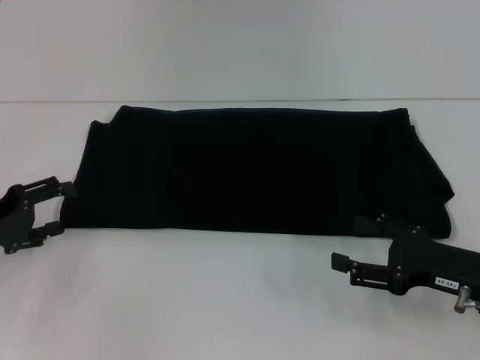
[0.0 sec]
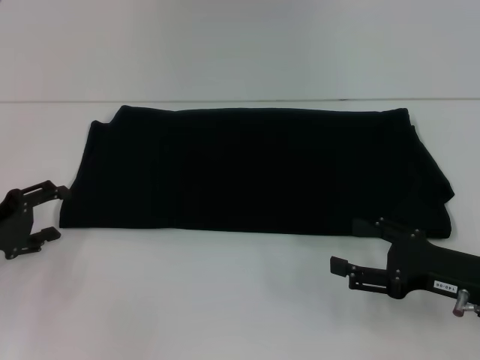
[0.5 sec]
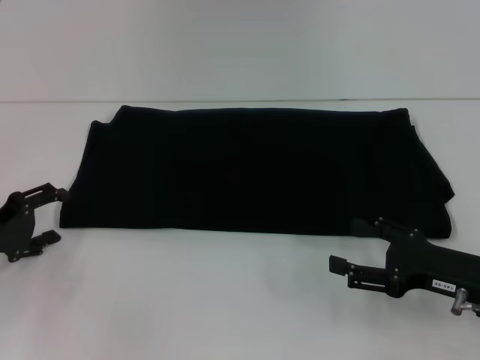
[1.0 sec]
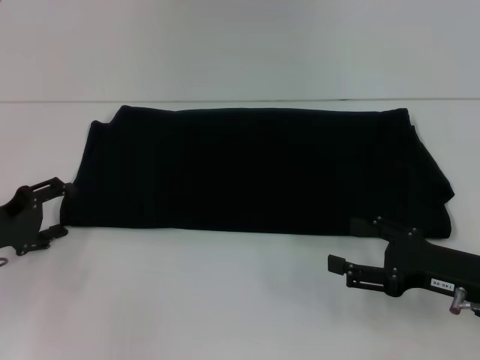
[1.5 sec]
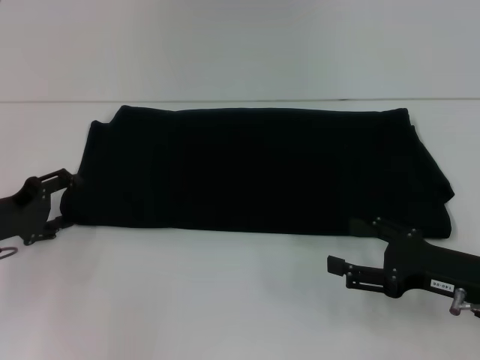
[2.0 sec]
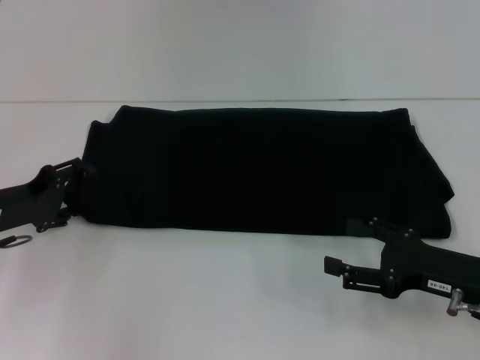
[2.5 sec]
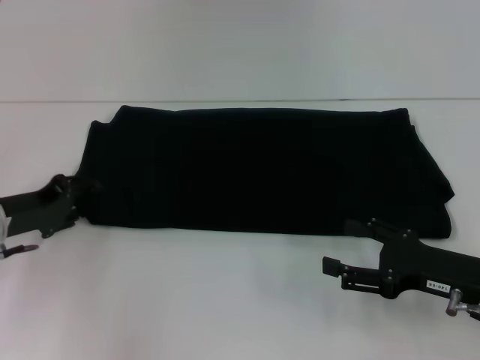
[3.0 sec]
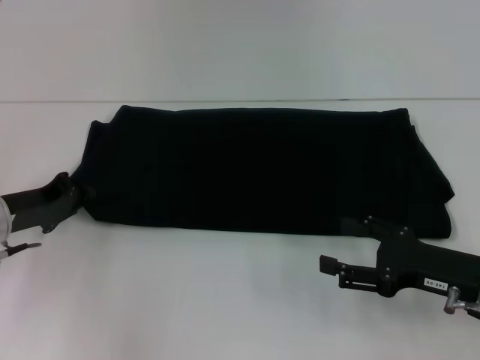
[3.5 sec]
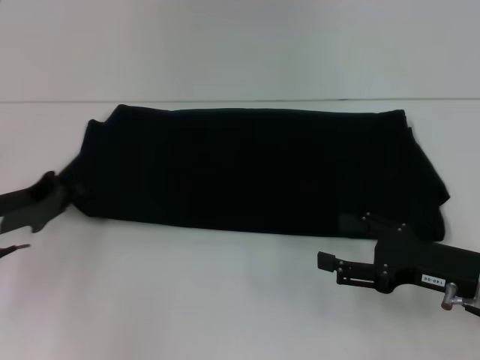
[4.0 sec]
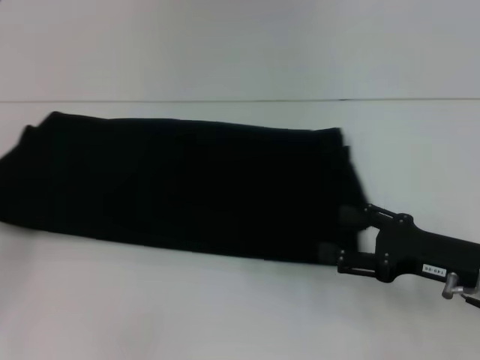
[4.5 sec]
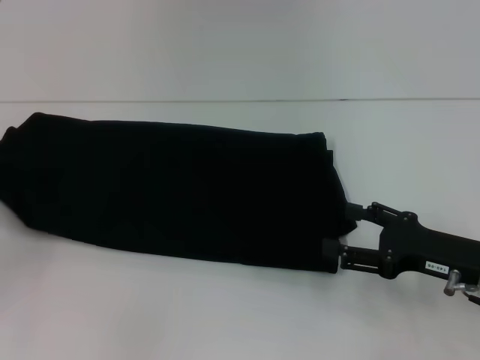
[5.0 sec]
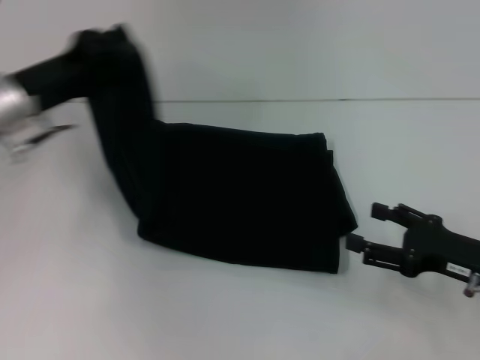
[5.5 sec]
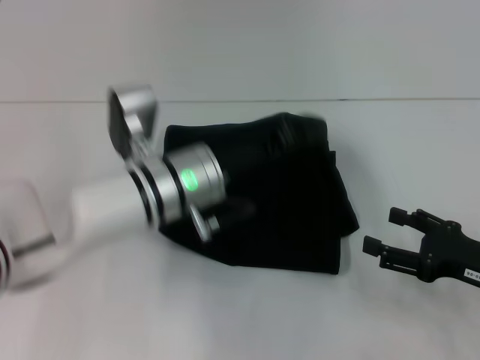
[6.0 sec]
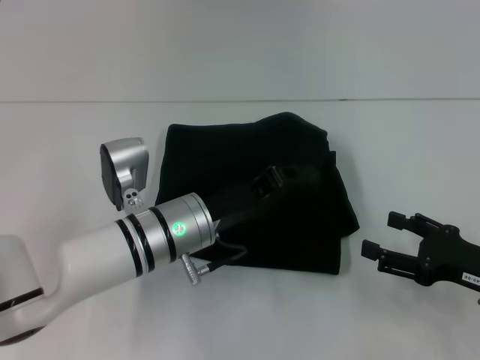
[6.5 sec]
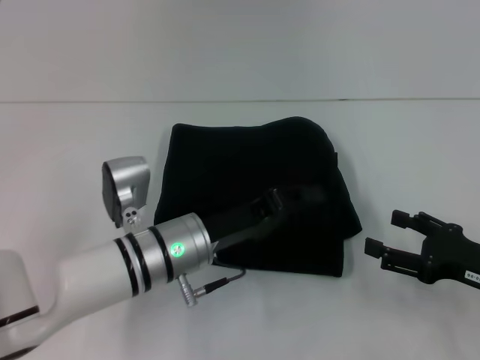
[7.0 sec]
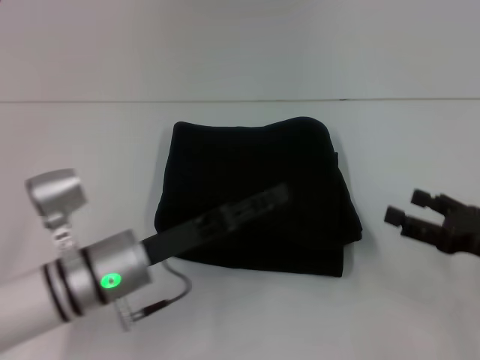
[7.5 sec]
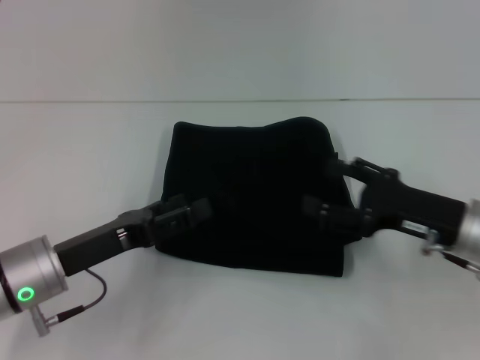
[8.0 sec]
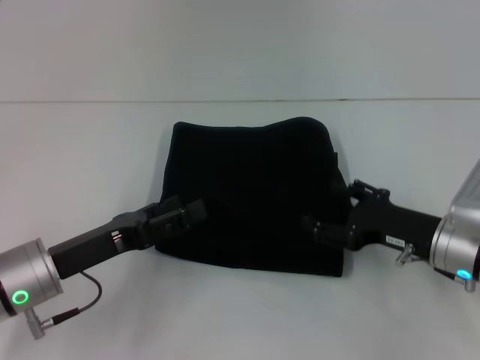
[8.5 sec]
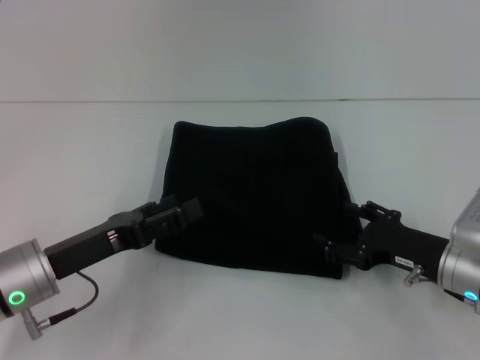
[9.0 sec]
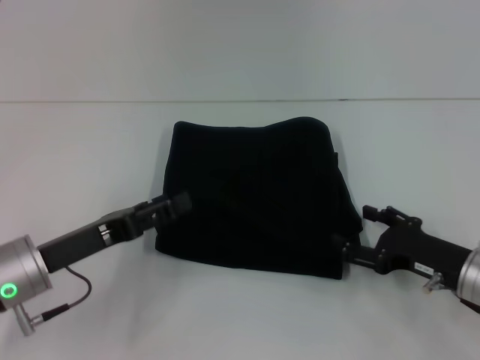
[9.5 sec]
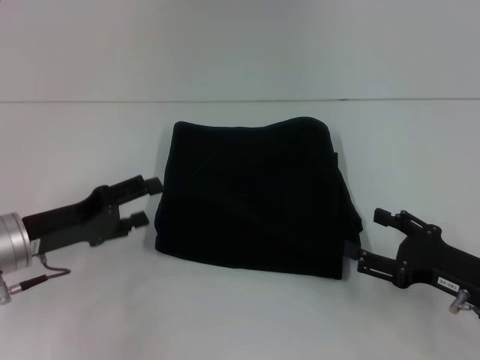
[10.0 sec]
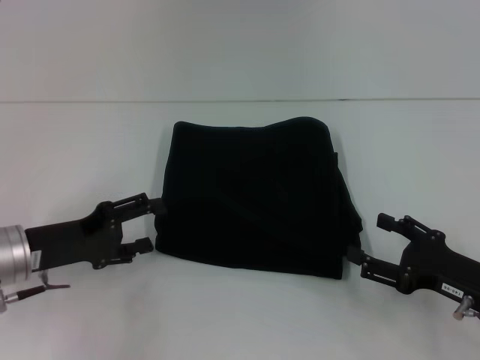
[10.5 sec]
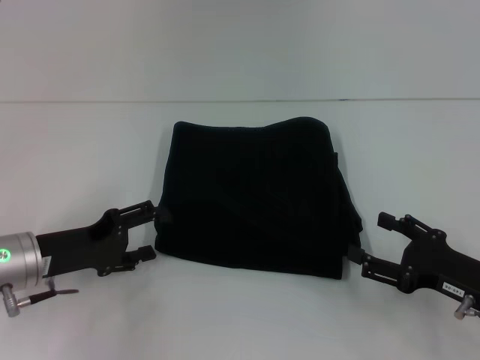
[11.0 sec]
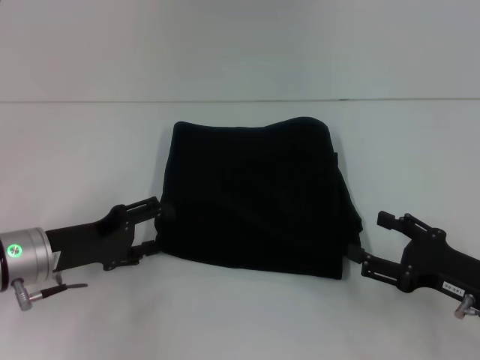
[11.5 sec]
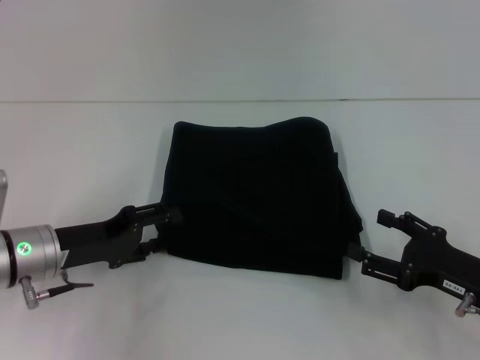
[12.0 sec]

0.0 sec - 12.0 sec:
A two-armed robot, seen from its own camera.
Step, 0.0 sec - 7.5 sec: Fold the clothes with your left hand.
0.0 sec - 2.0 sec: The grippers make only small movements.
2.0 sec - 4.0 sec: The left gripper closes its fingers.
4.0 sec - 6.0 sec: The left gripper is displaced to the right by about 25 cm.
6.0 sec - 8.0 sec: The left gripper goes some 15 cm to the left and backward, and opens up. Meanwhile the right gripper moves to the left, approximately 5 cm.
8.0 sec - 10.0 sec: The left gripper ends up some 5 cm from where it was. The right gripper travels backward by some 5 cm.
10.0 sec - 12.0 sec: The grippers make only small movements.

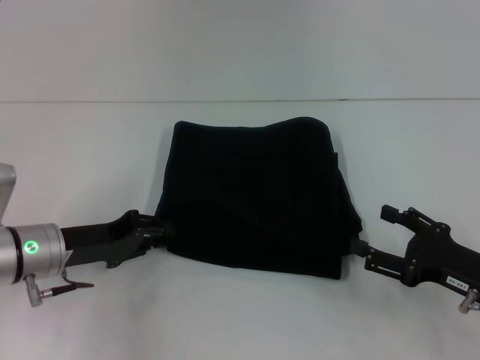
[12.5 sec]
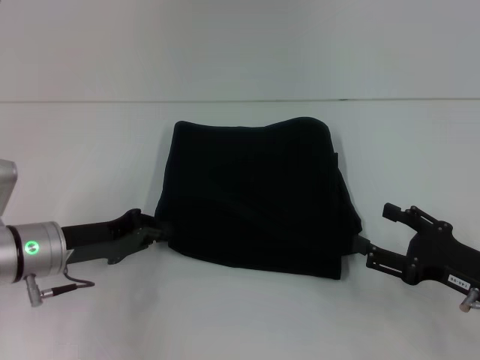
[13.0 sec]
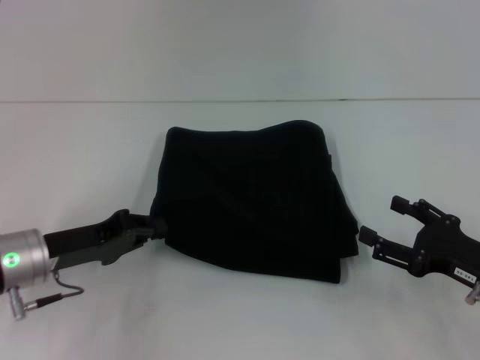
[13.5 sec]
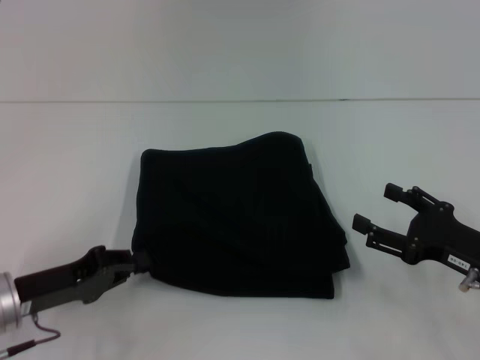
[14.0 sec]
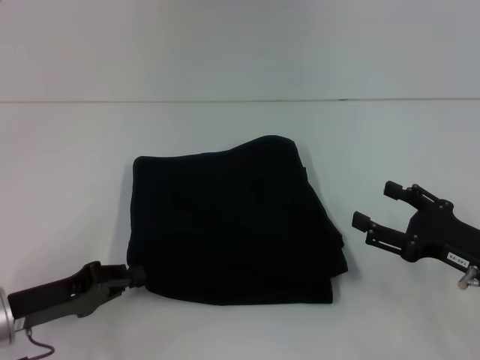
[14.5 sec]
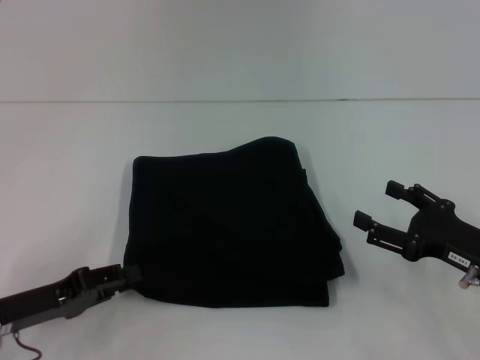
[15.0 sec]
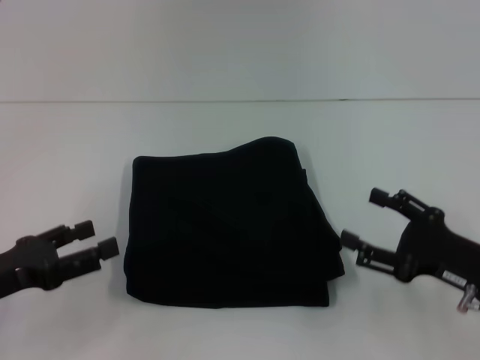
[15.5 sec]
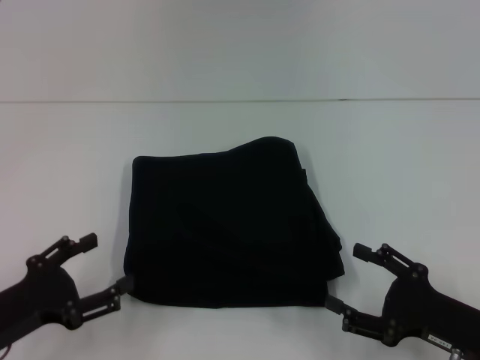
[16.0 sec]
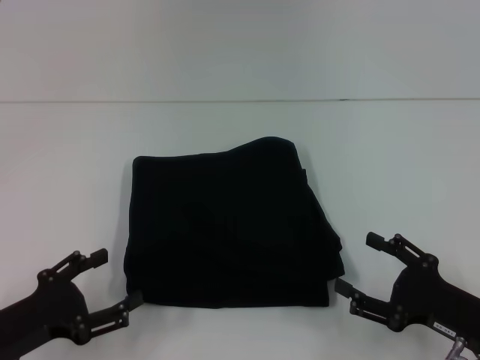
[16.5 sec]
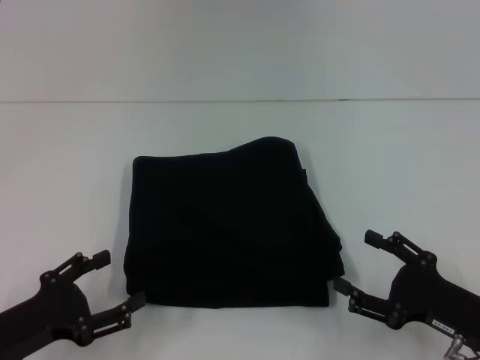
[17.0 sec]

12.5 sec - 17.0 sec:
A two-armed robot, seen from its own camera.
12.5 sec - 14.5 sec: The left gripper is displaced backward by some 10 cm.
14.5 sec - 17.0 sec: The left gripper opens up. Meanwhile the right gripper is displaced backward by approximately 5 cm.

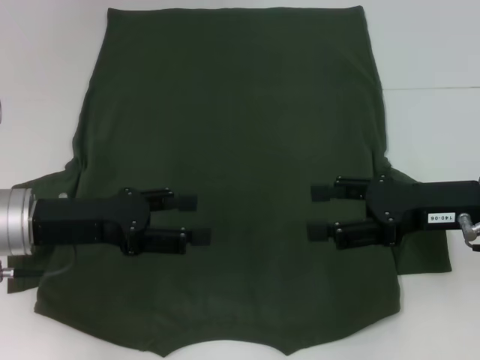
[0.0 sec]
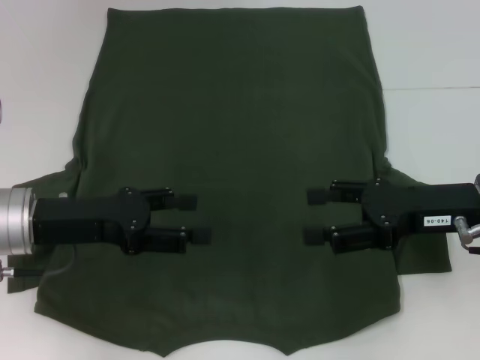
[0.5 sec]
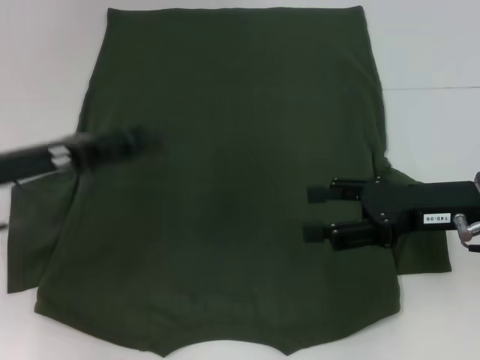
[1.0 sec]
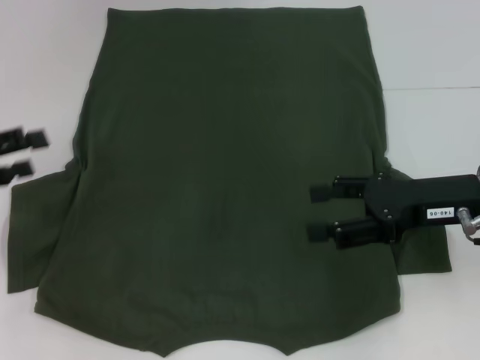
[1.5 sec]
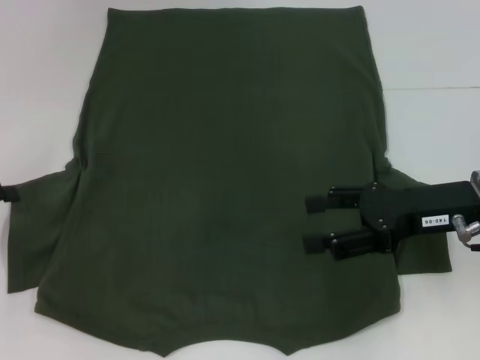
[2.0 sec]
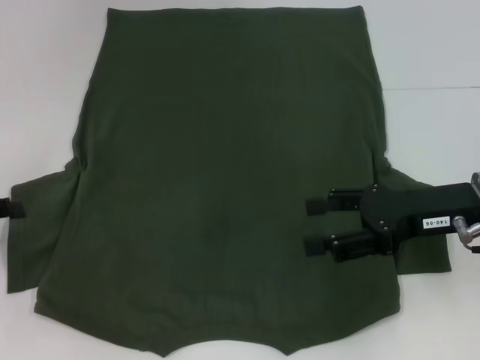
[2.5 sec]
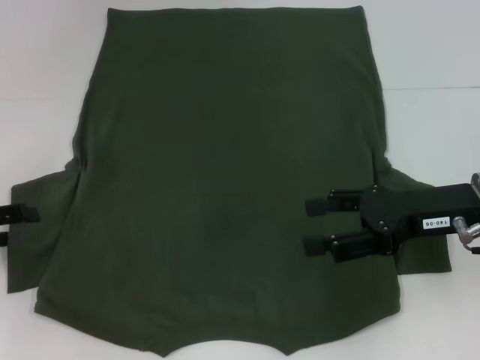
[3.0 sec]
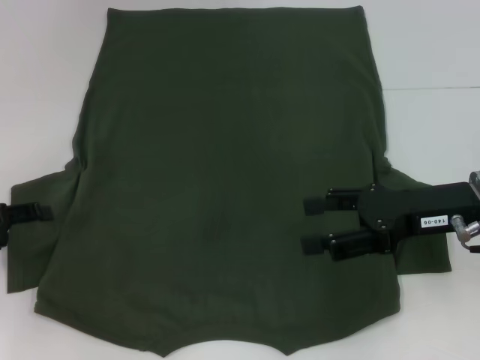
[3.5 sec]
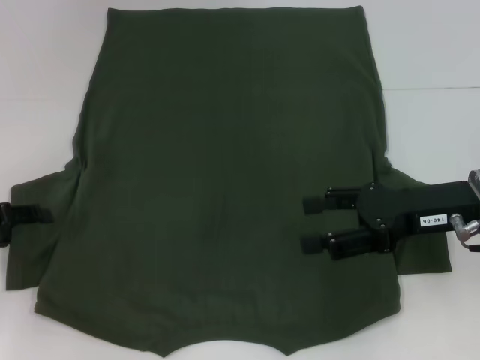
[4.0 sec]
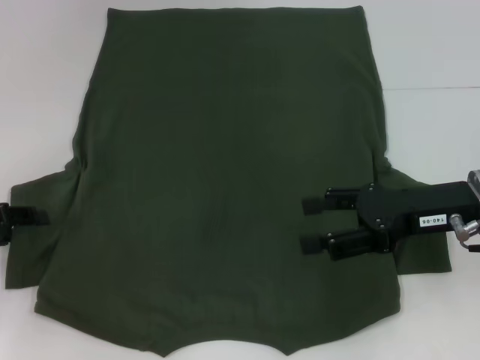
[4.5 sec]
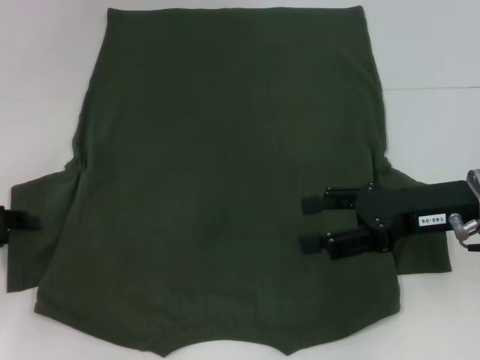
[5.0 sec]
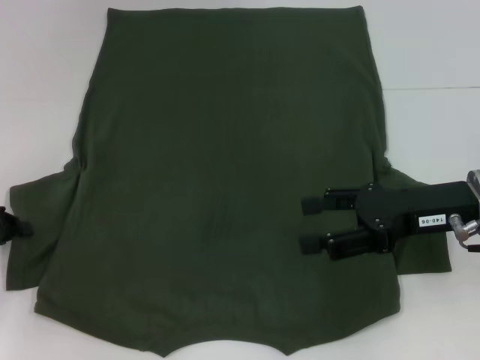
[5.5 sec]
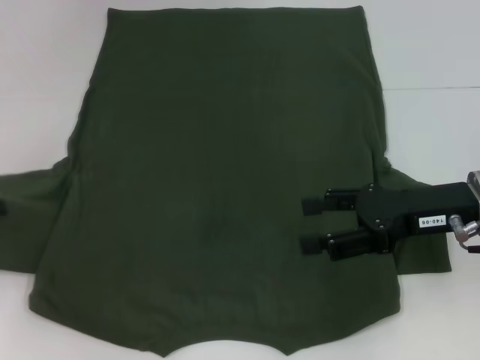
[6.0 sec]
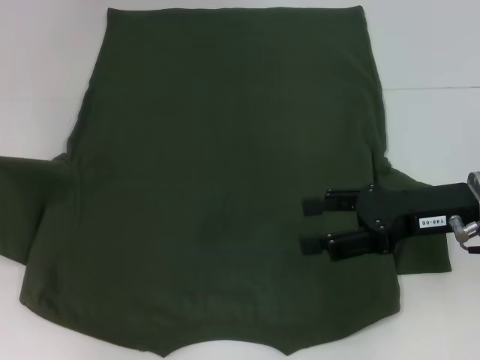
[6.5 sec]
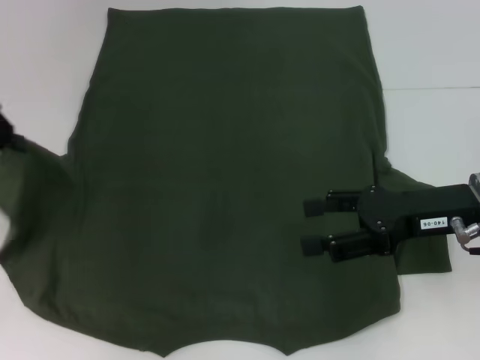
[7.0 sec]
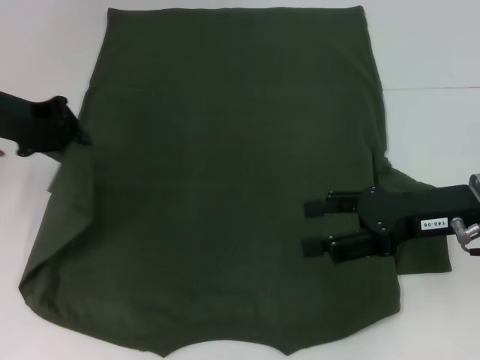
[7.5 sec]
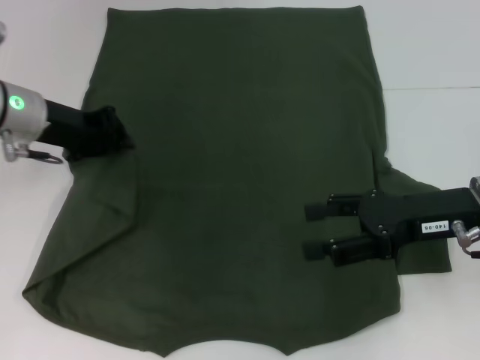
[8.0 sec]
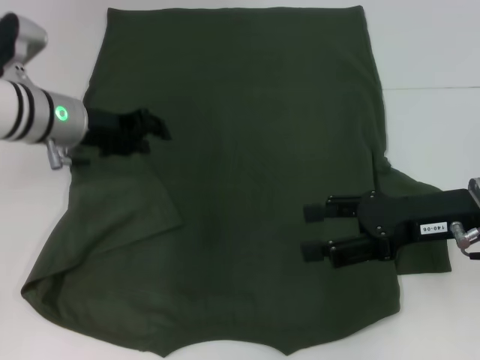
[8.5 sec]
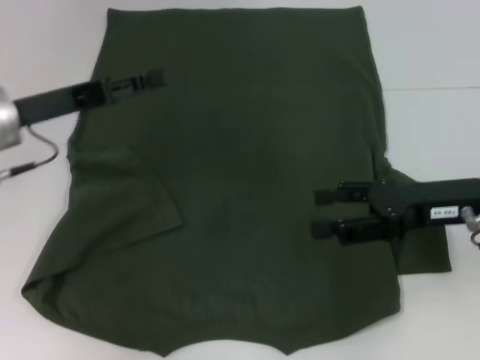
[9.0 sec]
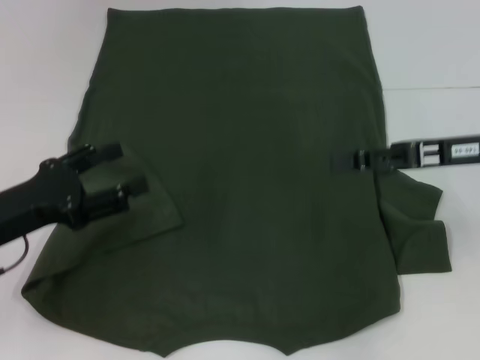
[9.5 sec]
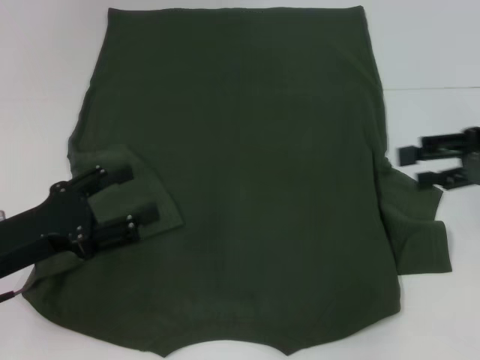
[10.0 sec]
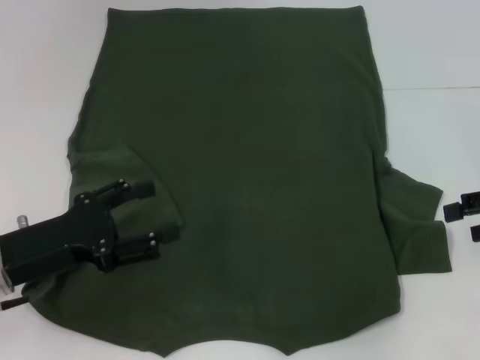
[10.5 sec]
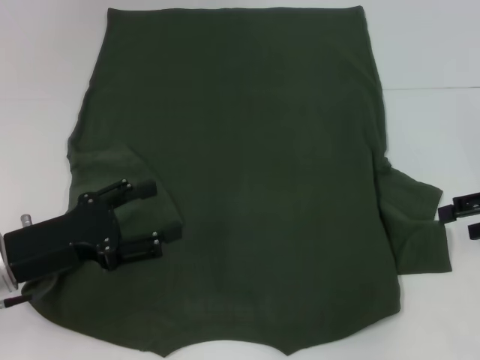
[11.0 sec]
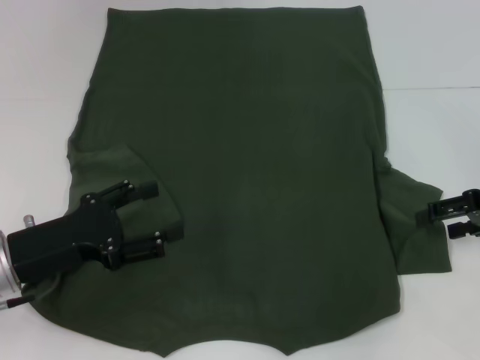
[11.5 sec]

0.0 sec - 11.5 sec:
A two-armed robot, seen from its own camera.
Step, 0.0 sec - 8.0 sec: Fold the bottom left sleeve with your left hand.
0.0 sec - 2.0 sec: The left gripper travels to the left by some 15 cm.
2.0 sec - 4.0 sec: The left gripper moves roughly 5 cm.
4.0 sec - 6.0 sec: The left gripper closes up.
6.0 sec - 7.5 sec: The left gripper moves to the right, forward and upward, some 15 cm.
7.5 sec - 9.5 sec: The right gripper ends up roughly 5 cm from where it was. Meanwhile the left gripper moves backward and downward, some 15 cm, and opens.
9.5 sec - 11.5 sec: The right gripper goes about 5 cm to the right.
